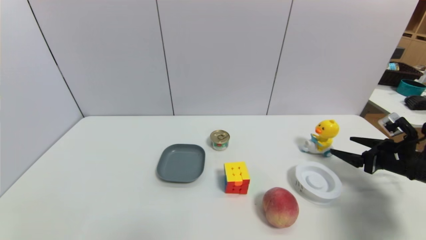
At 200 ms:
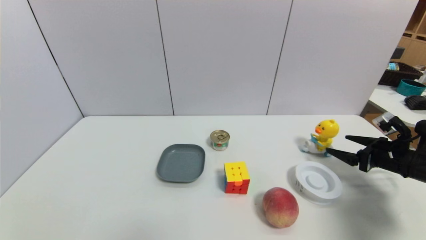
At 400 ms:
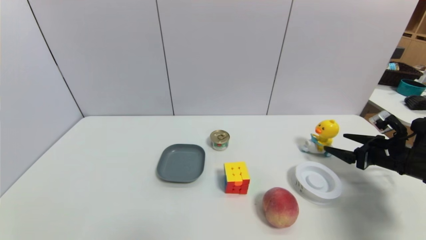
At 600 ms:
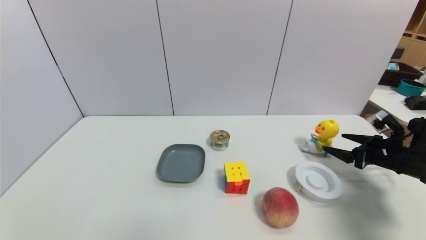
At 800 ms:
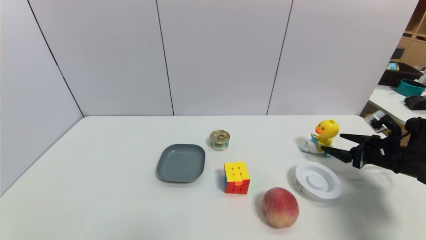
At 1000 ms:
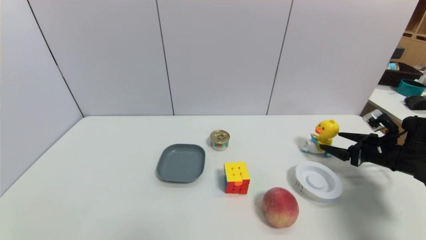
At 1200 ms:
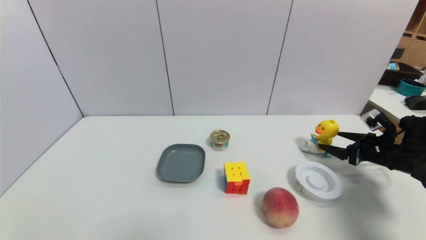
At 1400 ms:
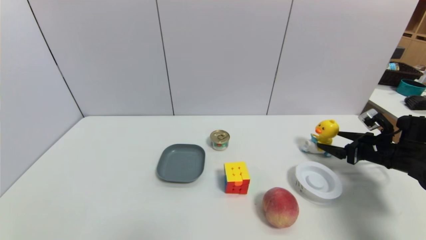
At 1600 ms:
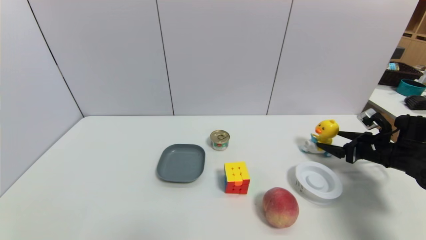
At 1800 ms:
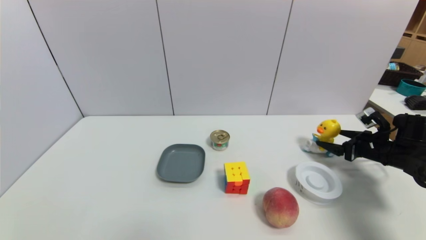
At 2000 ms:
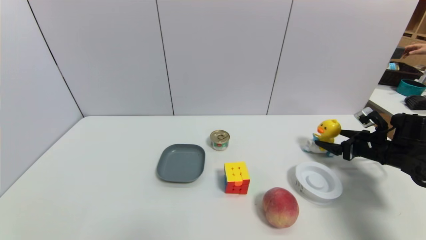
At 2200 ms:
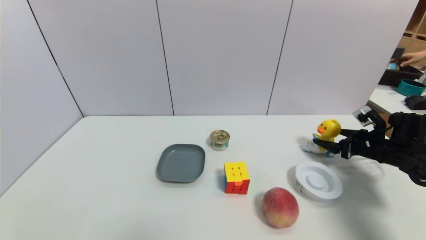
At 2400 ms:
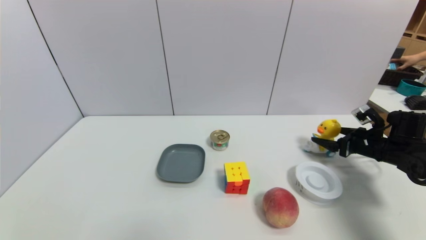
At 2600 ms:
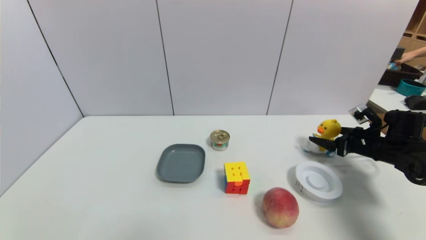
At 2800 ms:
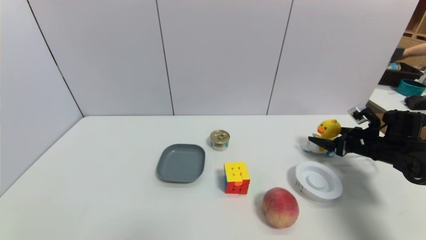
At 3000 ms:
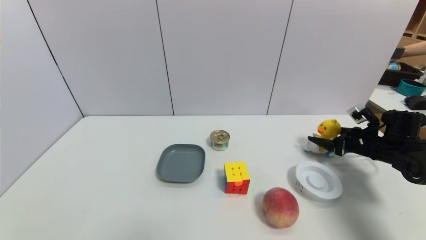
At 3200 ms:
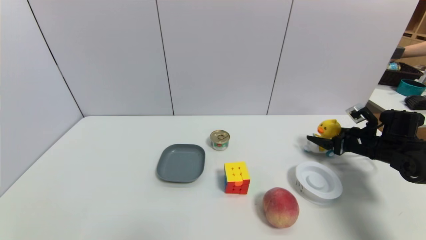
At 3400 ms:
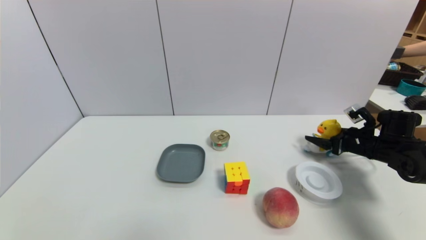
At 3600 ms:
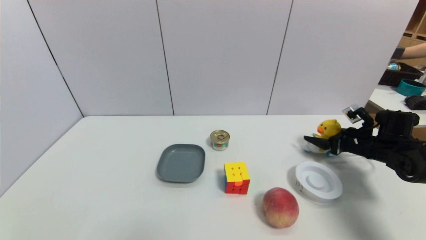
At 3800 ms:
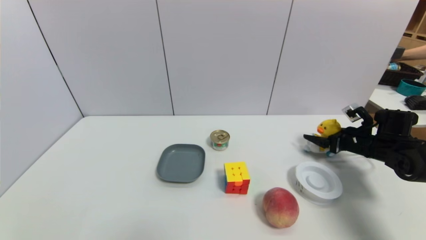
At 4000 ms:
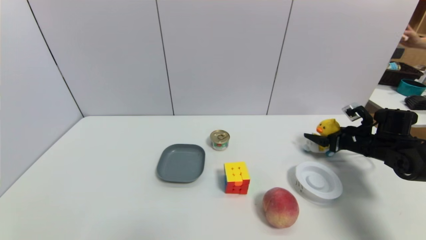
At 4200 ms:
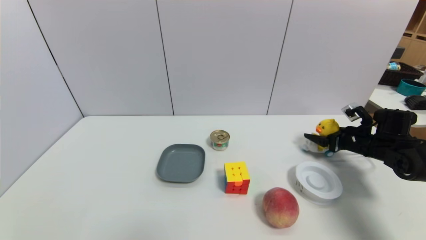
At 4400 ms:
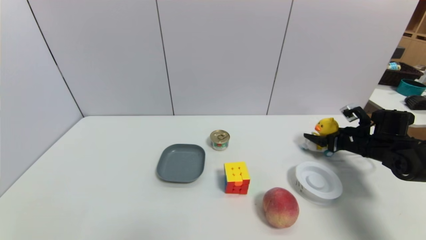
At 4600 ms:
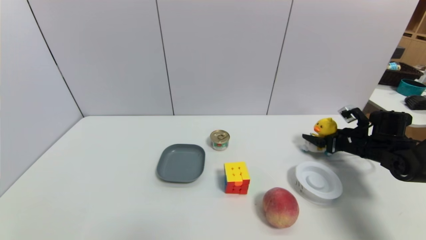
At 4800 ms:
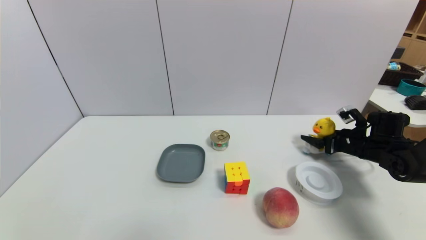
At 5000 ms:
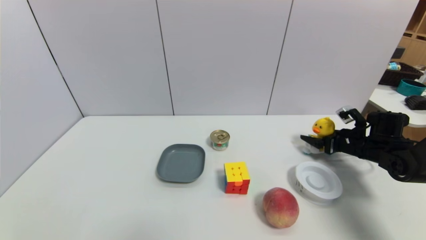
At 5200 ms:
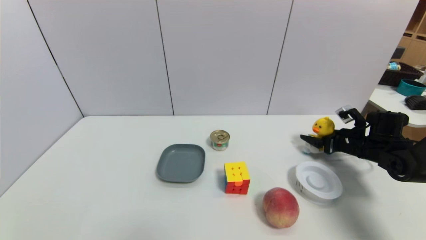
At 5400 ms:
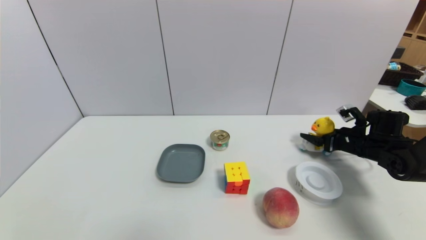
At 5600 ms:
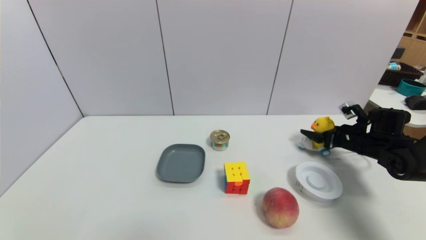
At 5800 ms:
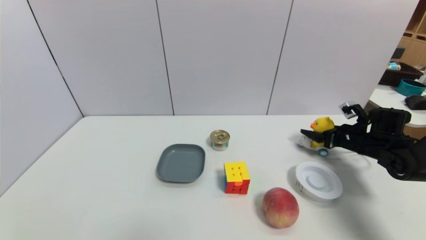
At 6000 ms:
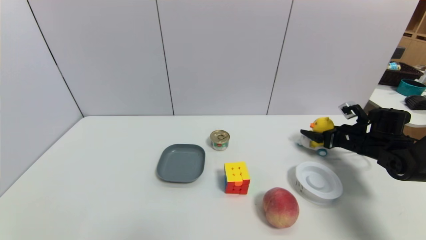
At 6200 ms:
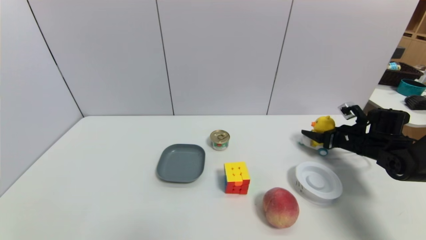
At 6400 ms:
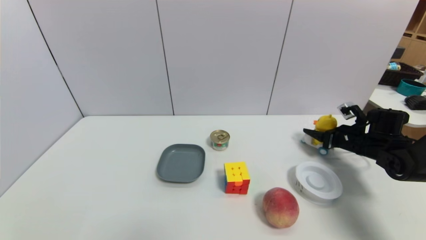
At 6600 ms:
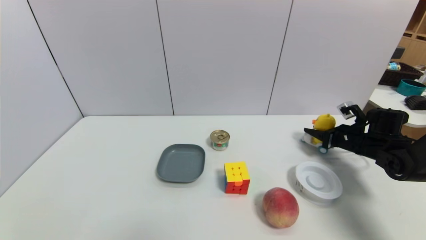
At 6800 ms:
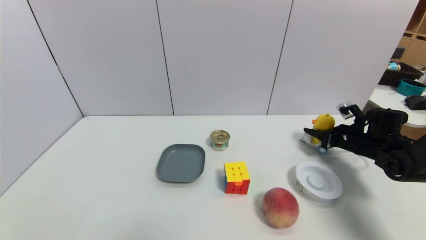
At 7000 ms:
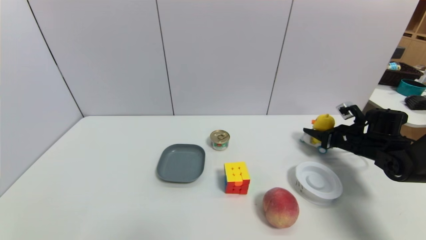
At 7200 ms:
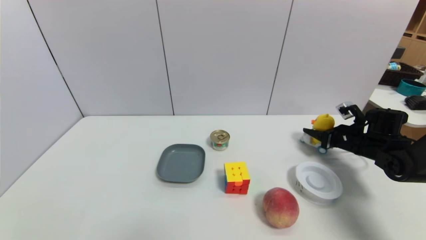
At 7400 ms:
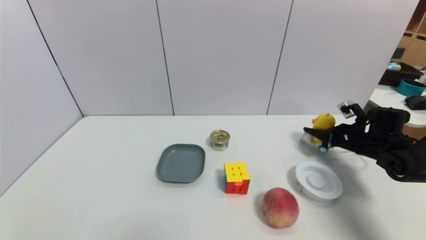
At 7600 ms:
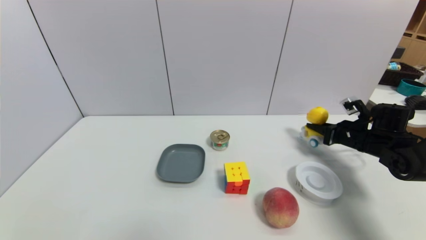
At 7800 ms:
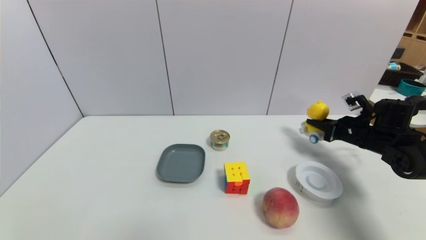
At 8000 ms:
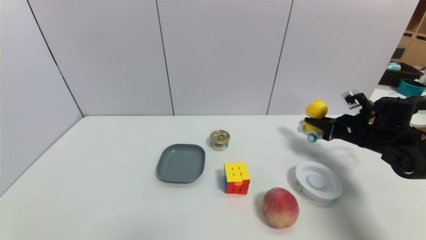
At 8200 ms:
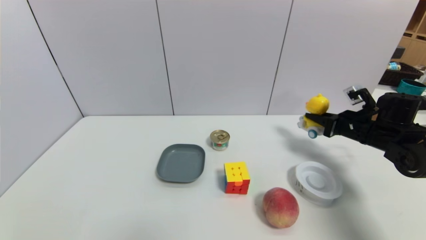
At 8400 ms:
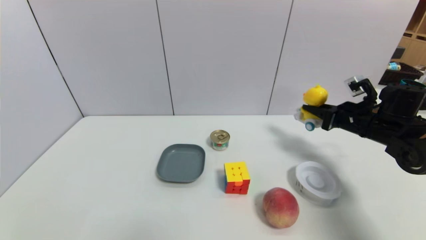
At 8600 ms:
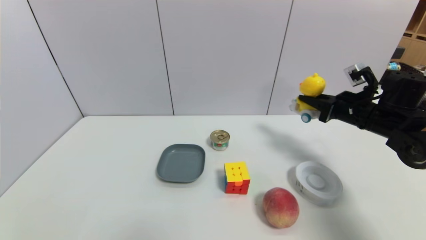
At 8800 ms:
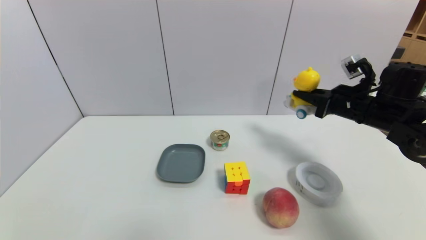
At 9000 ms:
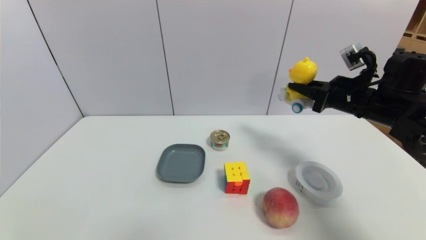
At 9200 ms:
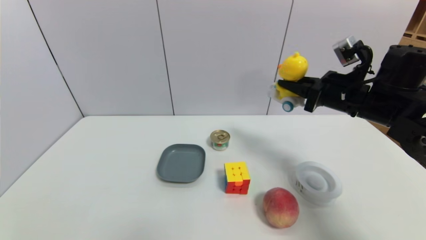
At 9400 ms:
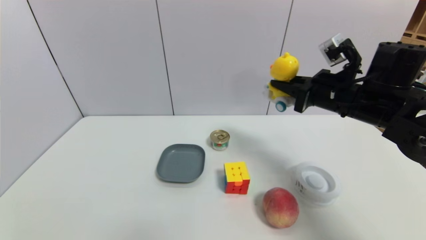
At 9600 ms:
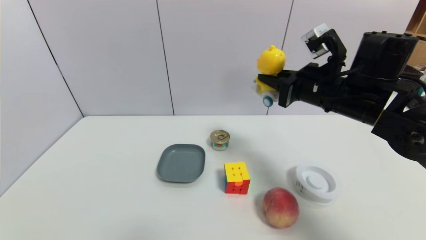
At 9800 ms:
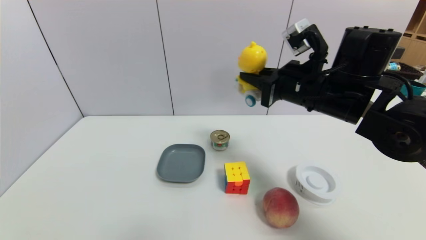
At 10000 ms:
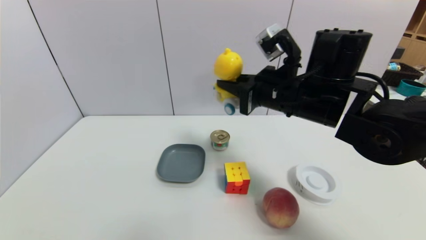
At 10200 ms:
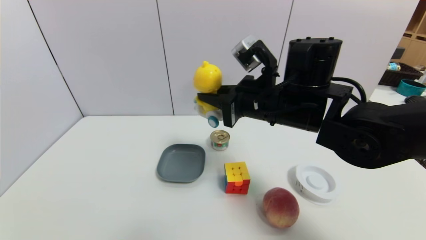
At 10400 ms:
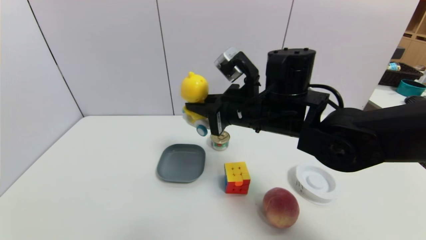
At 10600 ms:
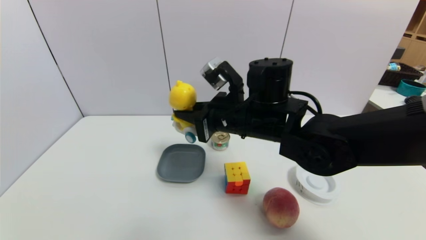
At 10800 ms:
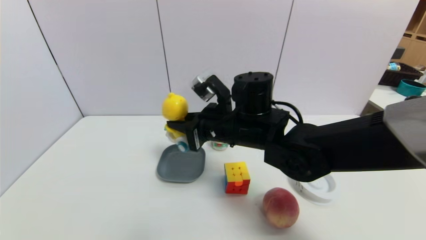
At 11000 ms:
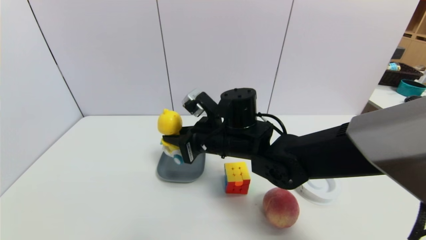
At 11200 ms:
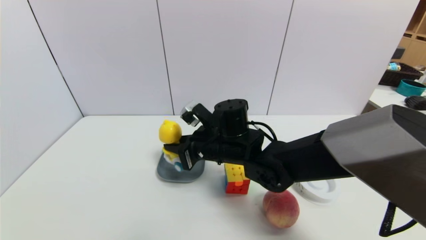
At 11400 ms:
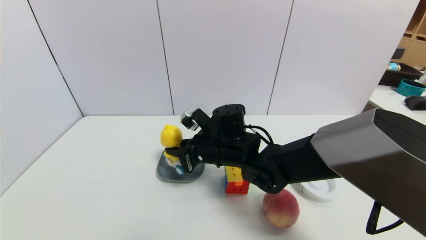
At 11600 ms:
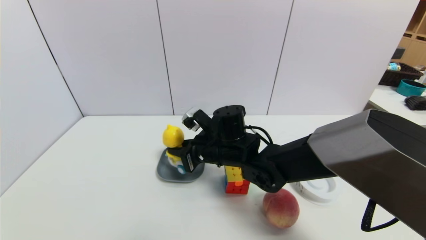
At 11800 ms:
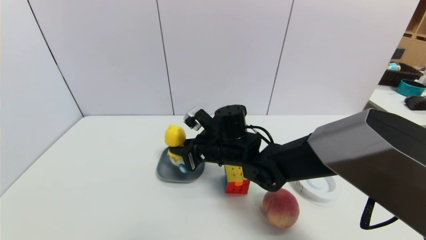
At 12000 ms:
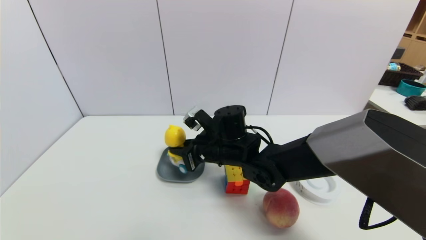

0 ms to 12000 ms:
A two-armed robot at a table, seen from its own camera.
Task of the whole recording: use a gripper to pick the target object and place on the dish.
Step, 0 ms to 6800 ms: Grasp the duck toy with the right gripper.
0 ms to 1600 ms: The right gripper heads forward, covering approximately 5 cm.
1600 ms to 4400 ms: The grippers stay close to where they were, moving slightly.
4400 ms to 6000 ms: Neither gripper changes place.
6000 ms to 7600 ms: The right gripper closes.
7600 ms to 9000 ms: The right gripper is displaced upward and to the left by about 15 cm.
9000 ms to 10400 ms: The right gripper travels to the left by approximately 20 cm.
10400 ms to 12000 ms: The right gripper is displaced downward and to the left by about 10 cm.

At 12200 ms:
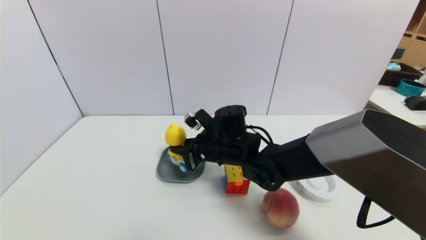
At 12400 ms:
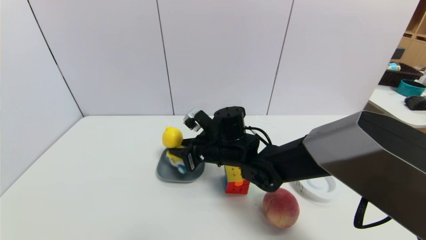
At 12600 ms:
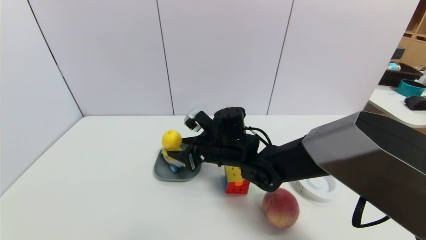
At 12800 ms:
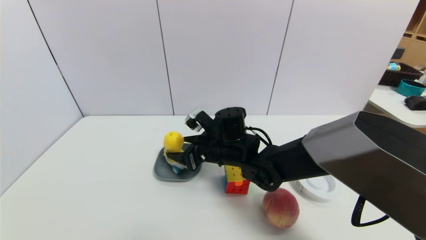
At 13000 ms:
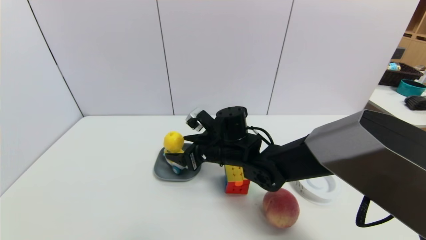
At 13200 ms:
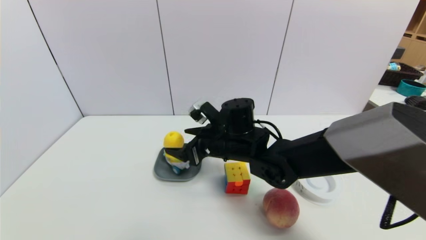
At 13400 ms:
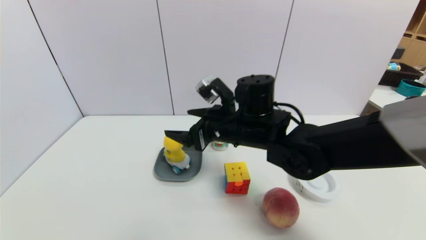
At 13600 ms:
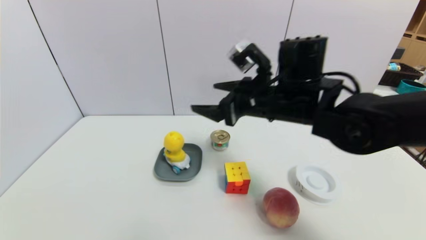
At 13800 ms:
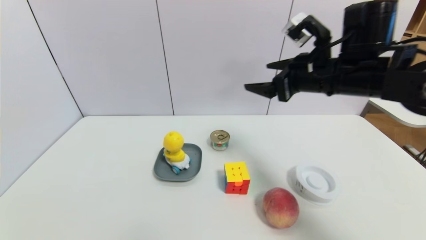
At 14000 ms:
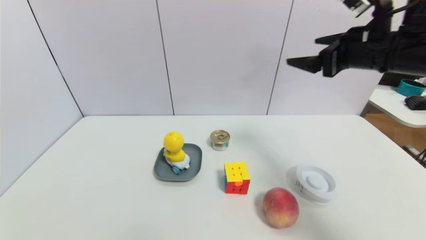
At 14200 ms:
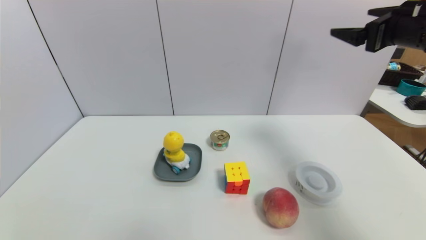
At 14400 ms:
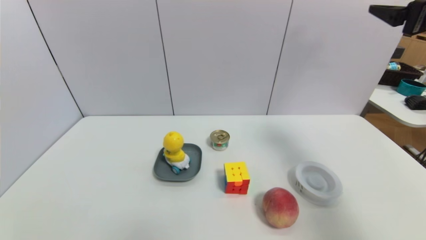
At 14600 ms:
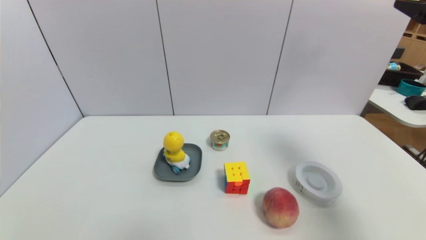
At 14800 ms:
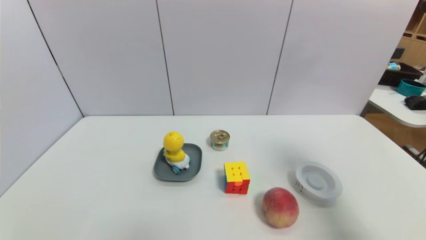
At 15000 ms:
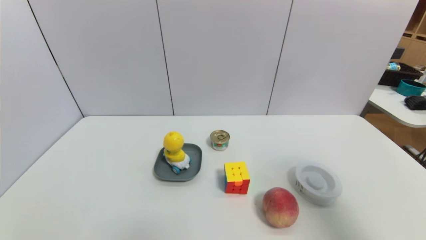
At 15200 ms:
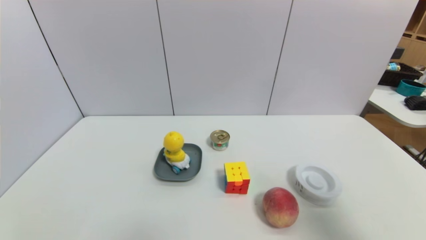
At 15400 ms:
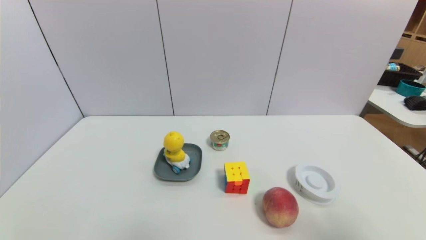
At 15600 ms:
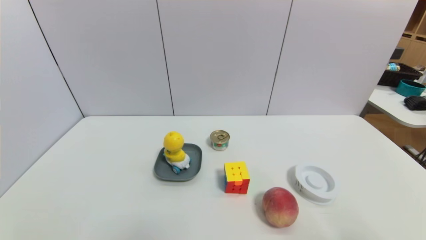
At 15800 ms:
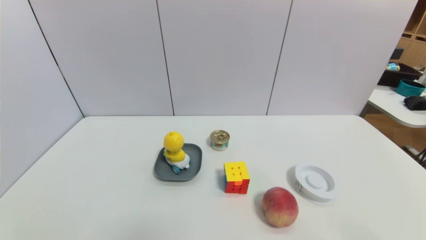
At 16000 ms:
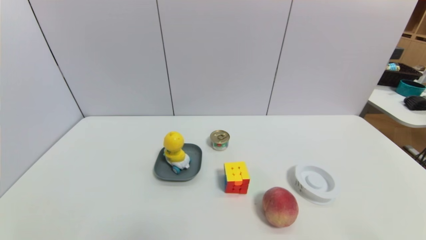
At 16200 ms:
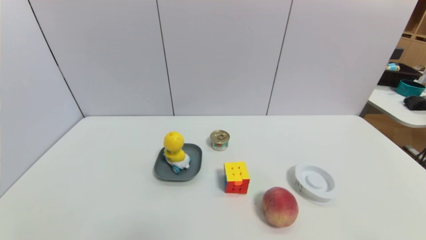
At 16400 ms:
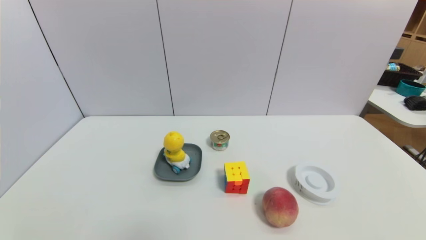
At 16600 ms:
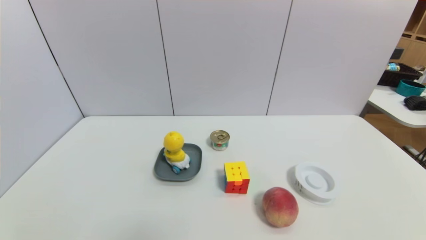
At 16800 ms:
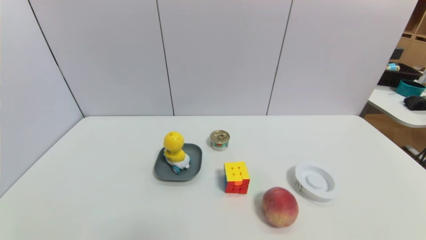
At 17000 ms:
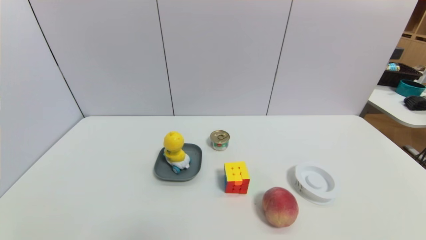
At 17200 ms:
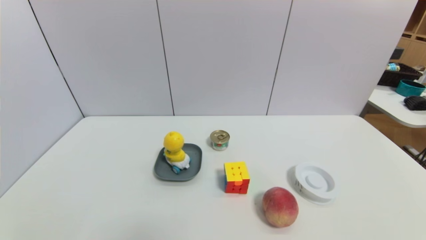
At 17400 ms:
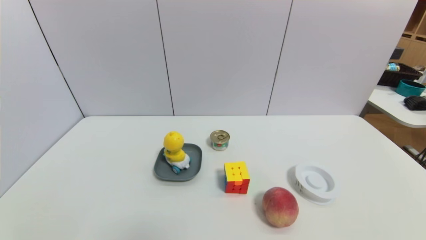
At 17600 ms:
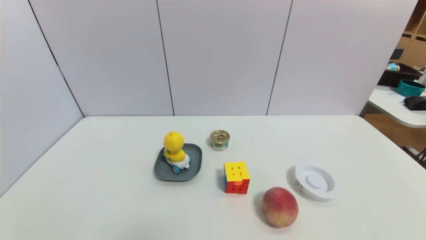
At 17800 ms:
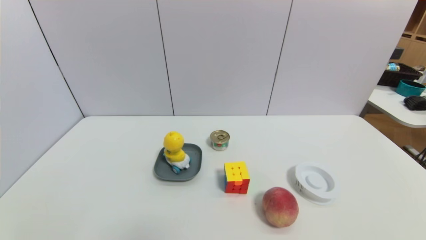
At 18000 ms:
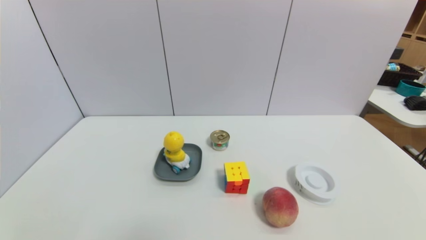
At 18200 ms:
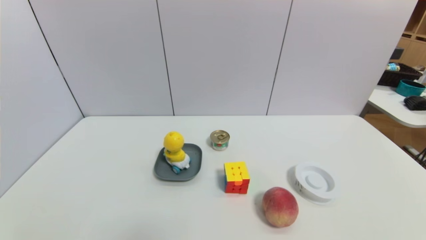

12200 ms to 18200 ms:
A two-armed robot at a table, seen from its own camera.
Task of the whole recording: use a gripper to pick the target object and place on the dish.
12200 ms to 13800 ms: The right gripper is displaced to the right and upward by approximately 25 cm, and opens up.
13800 ms to 15200 ms: The right gripper goes some 25 cm backward and to the right.
15200 ms to 16600 ms: The right gripper shifts about 25 cm downward.
16600 ms to 18200 ms: Both grippers stay about where they are.
